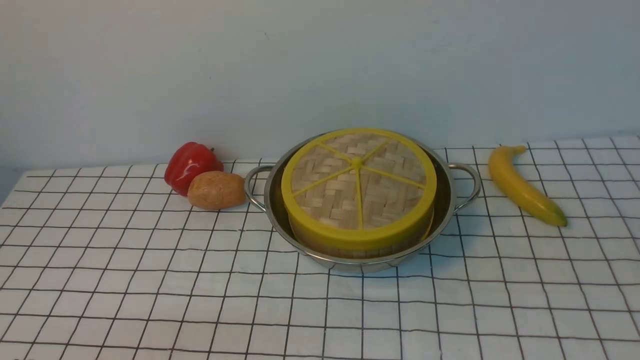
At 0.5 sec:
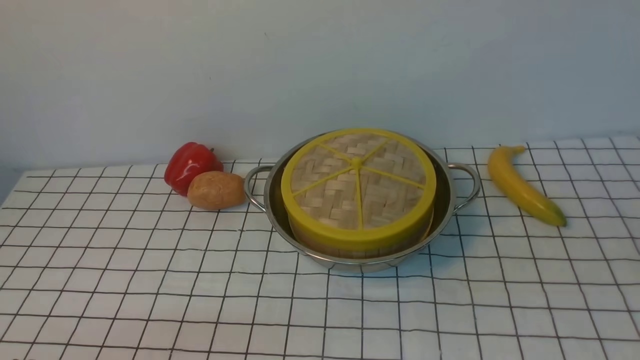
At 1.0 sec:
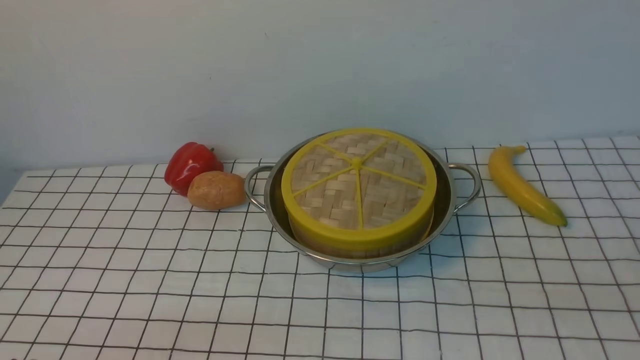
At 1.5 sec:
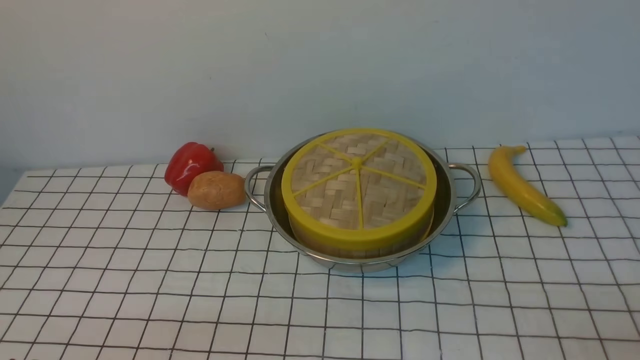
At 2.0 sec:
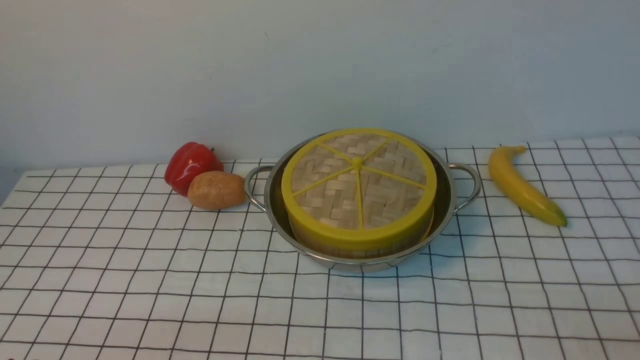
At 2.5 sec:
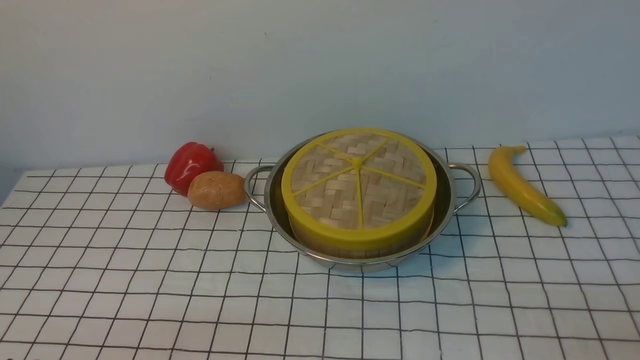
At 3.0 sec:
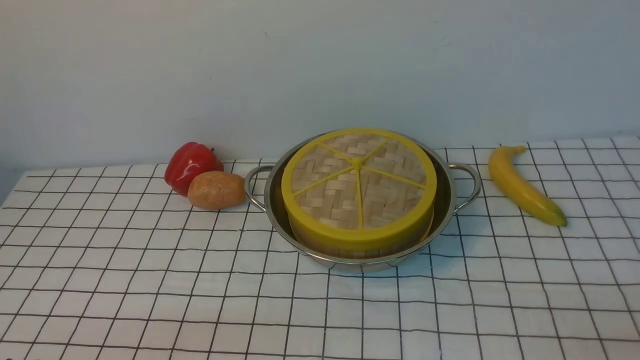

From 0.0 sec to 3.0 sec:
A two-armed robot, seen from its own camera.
Task of the whole recording: place the steamer in the pot on the white tablecloth, and put the lid on the steamer.
From 1.5 sec to 3.0 sec: The two grippers keep their place.
